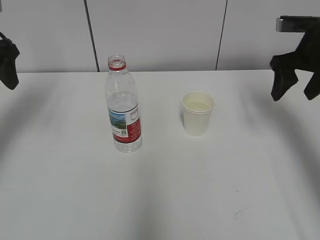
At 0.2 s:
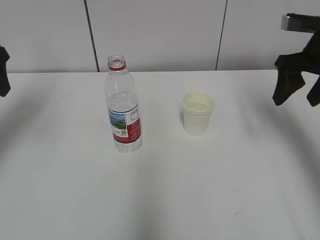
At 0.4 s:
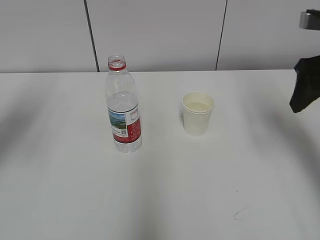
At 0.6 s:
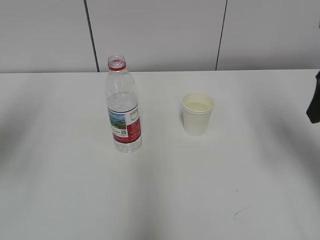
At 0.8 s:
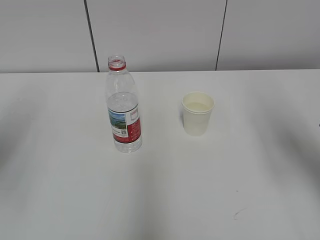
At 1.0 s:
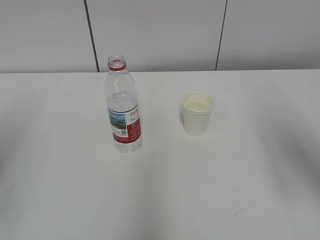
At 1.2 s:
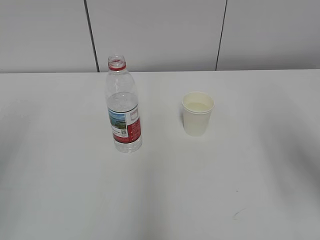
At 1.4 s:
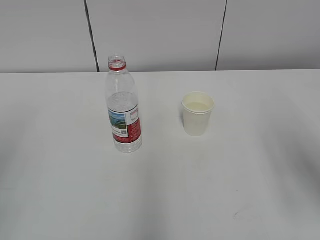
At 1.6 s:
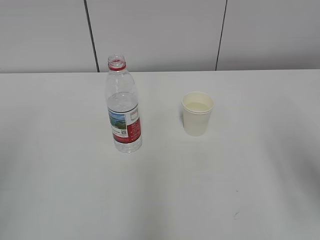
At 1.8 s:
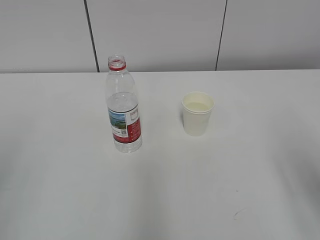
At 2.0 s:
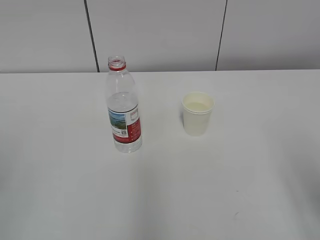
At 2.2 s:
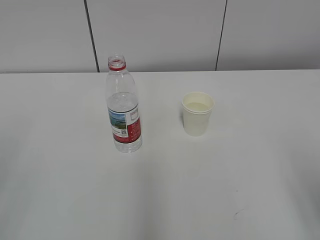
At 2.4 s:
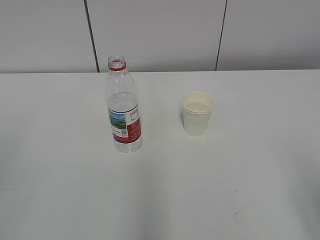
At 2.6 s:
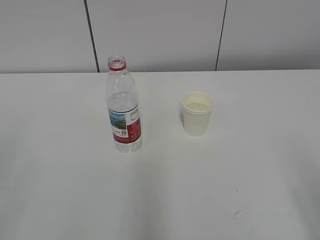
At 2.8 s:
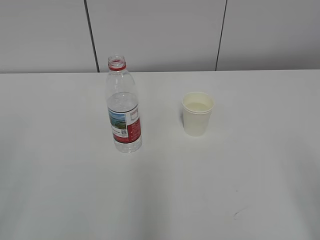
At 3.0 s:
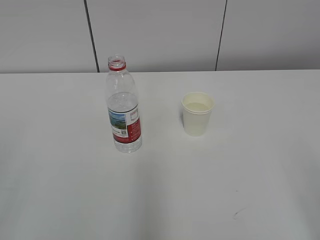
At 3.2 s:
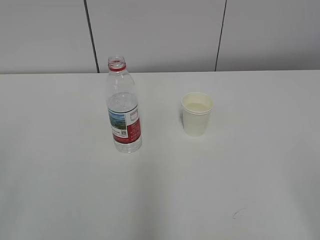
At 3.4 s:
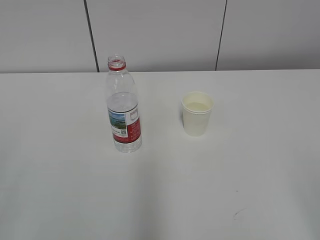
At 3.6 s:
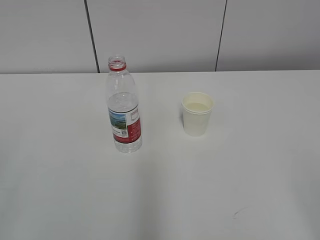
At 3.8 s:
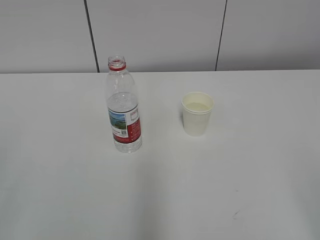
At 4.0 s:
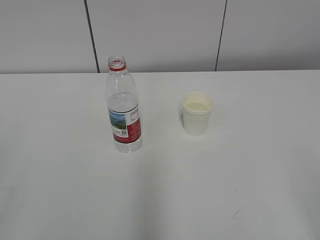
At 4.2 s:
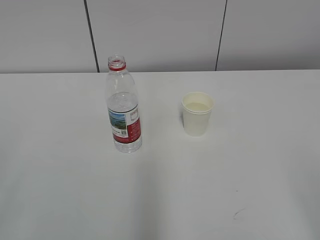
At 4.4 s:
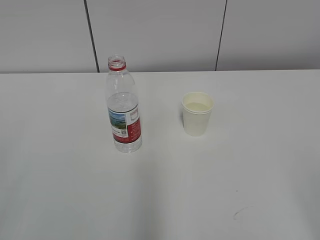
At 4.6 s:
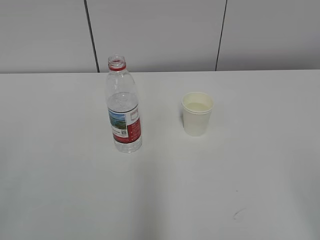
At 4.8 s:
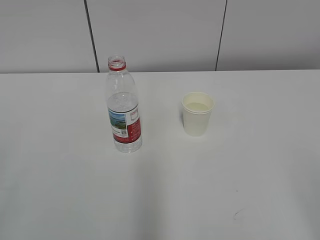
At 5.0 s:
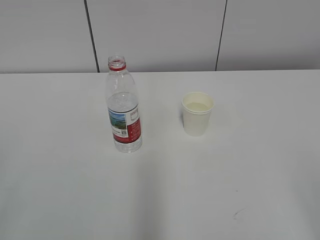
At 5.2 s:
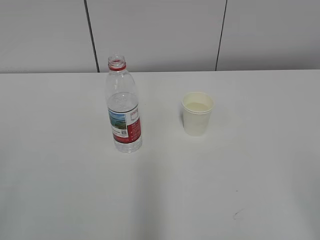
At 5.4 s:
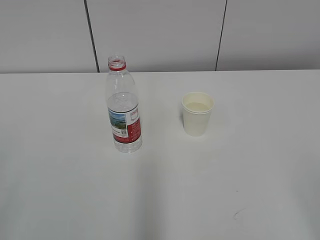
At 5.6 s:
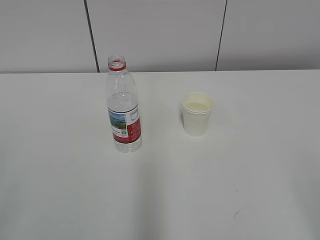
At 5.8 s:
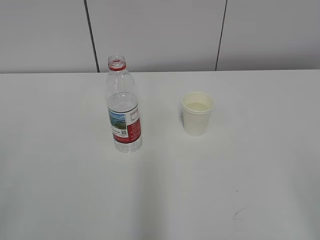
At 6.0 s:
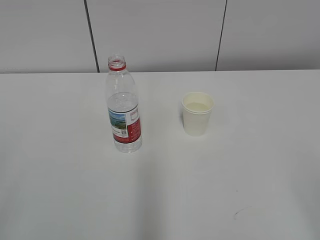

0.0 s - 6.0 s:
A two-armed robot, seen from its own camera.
0.0 s - 1.6 s: The two grippers go about 25 cm backward.
4.4 s - 6.0 s: Neither gripper changes place.
